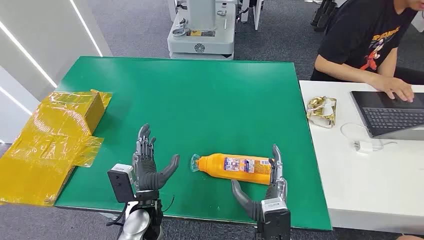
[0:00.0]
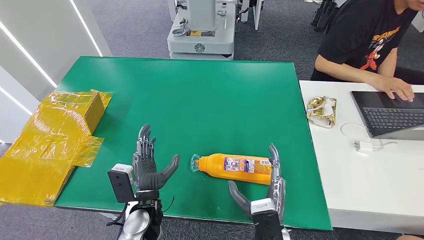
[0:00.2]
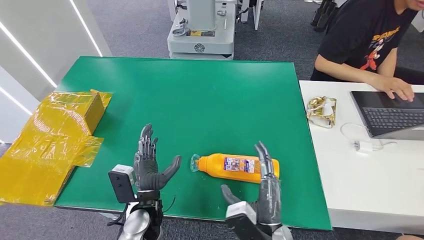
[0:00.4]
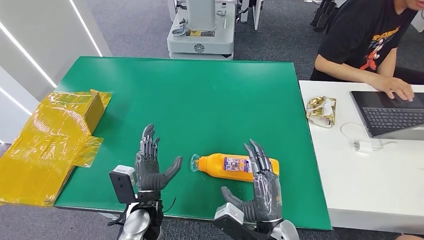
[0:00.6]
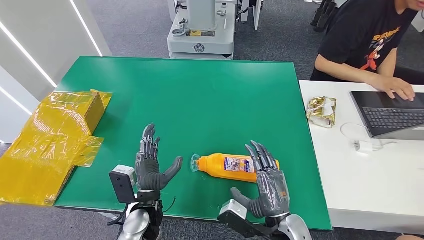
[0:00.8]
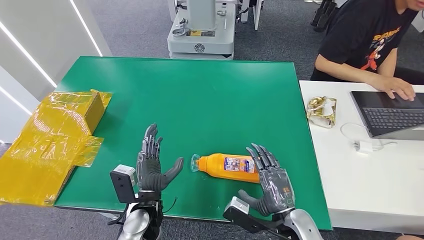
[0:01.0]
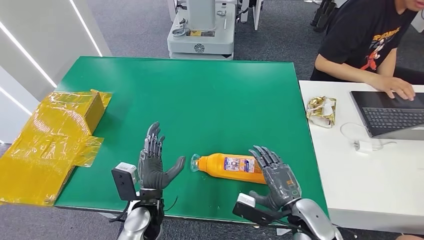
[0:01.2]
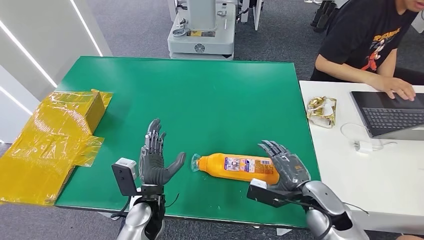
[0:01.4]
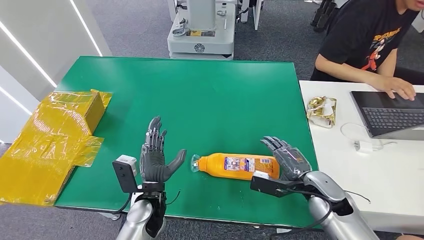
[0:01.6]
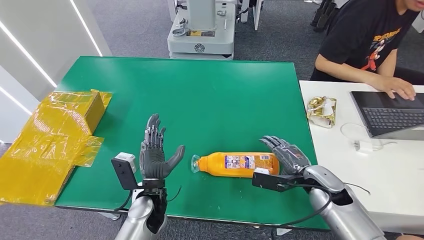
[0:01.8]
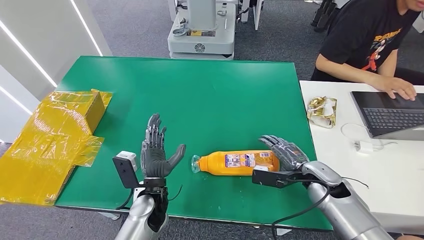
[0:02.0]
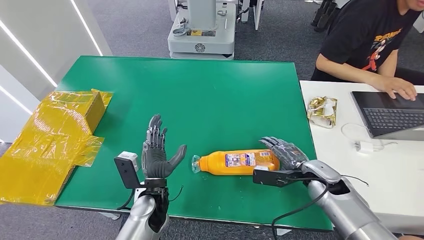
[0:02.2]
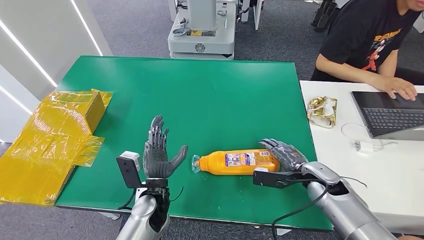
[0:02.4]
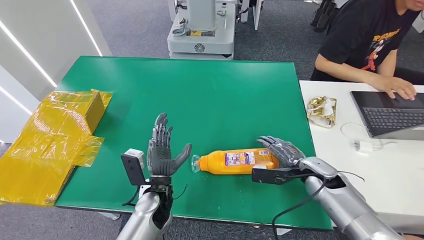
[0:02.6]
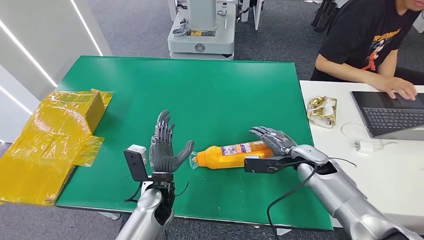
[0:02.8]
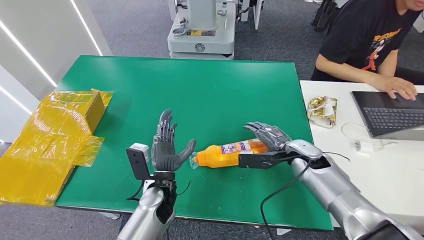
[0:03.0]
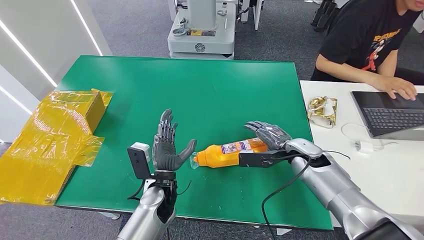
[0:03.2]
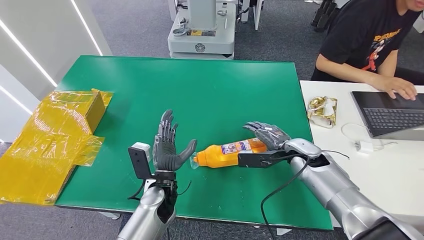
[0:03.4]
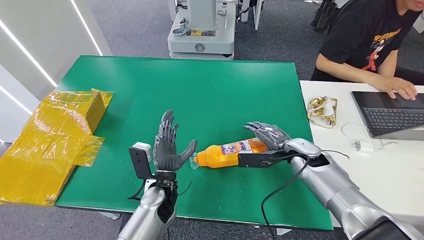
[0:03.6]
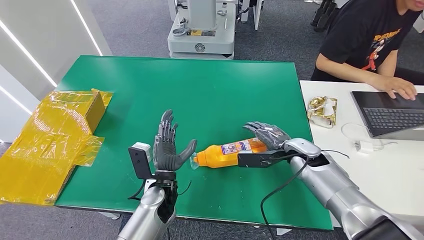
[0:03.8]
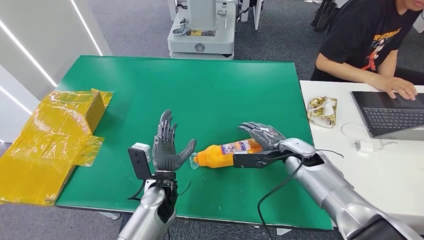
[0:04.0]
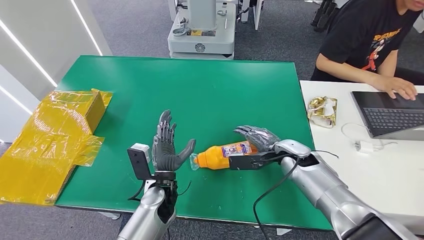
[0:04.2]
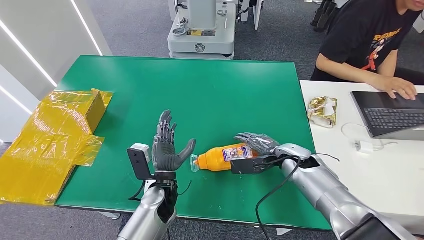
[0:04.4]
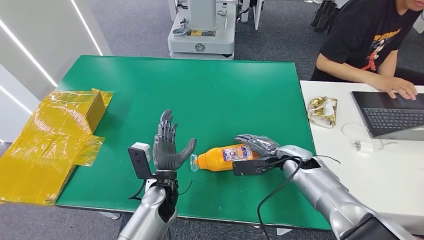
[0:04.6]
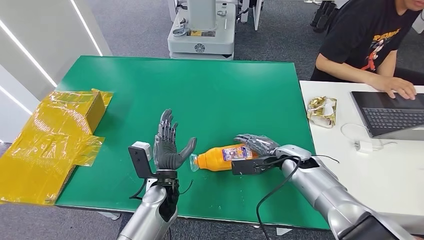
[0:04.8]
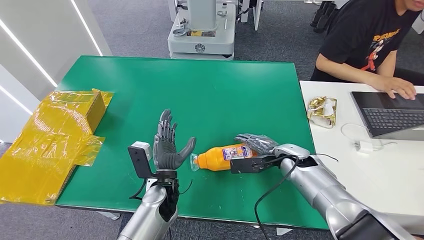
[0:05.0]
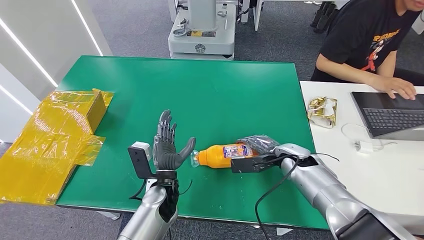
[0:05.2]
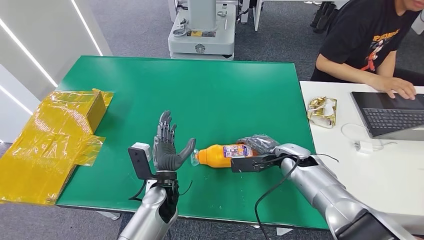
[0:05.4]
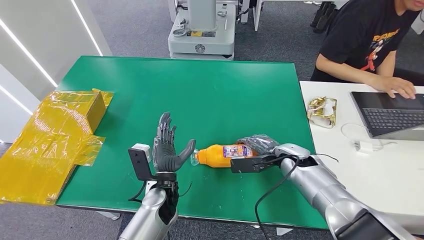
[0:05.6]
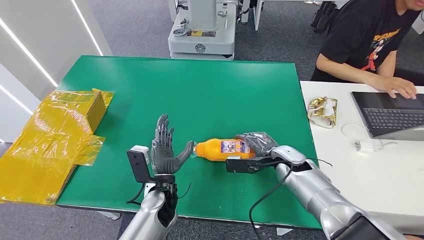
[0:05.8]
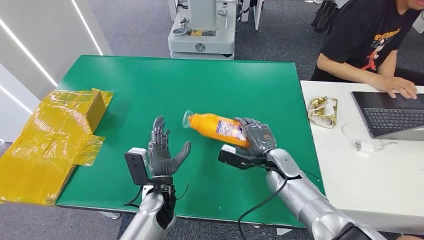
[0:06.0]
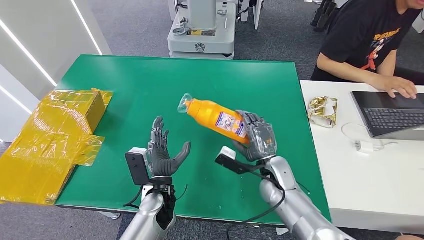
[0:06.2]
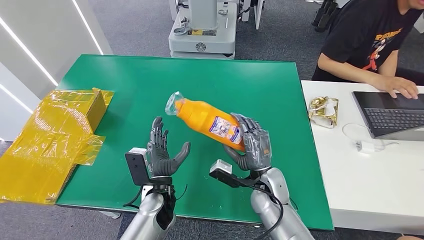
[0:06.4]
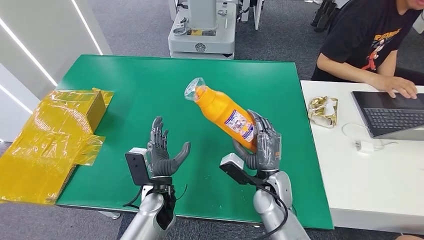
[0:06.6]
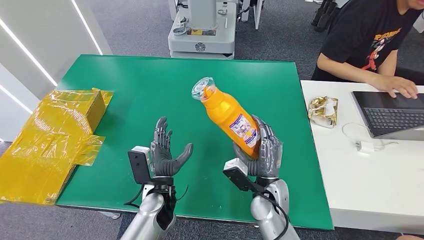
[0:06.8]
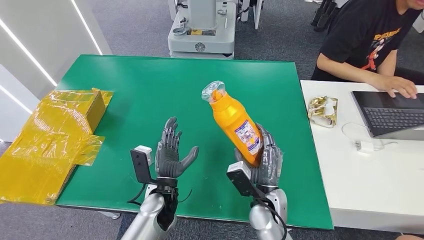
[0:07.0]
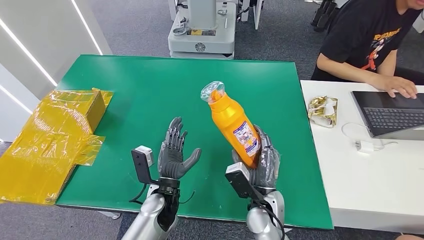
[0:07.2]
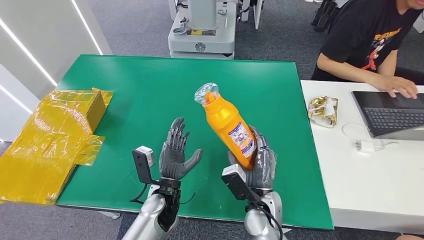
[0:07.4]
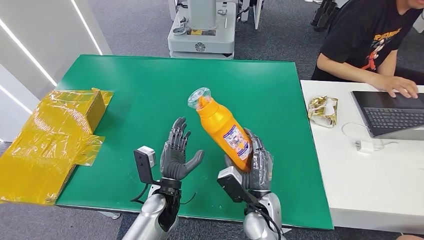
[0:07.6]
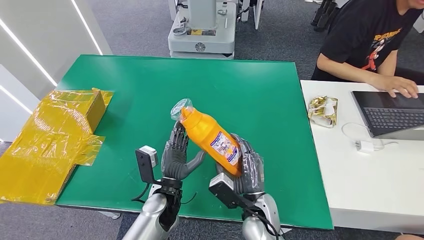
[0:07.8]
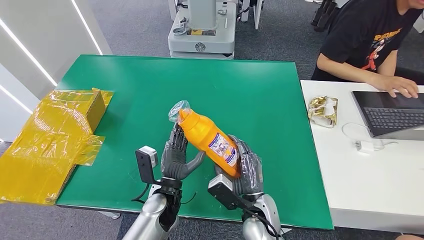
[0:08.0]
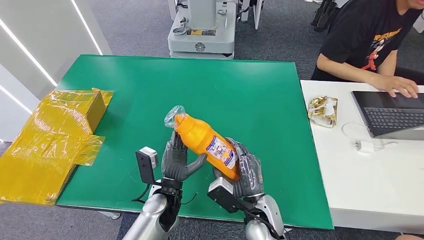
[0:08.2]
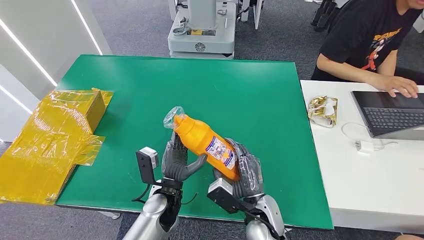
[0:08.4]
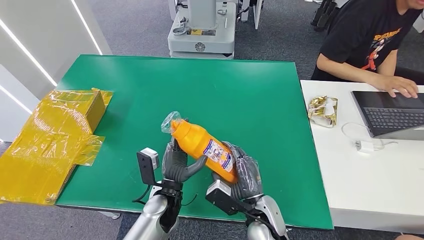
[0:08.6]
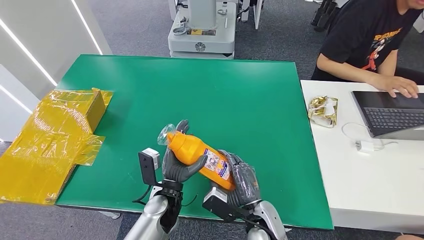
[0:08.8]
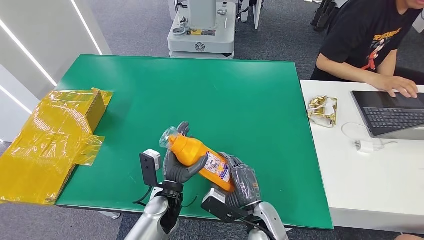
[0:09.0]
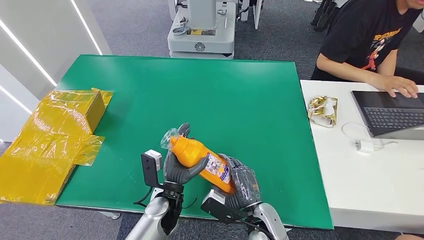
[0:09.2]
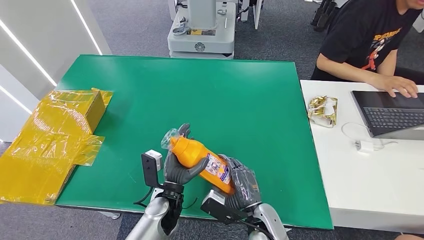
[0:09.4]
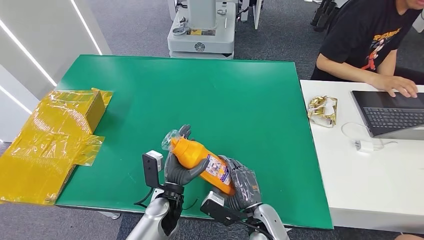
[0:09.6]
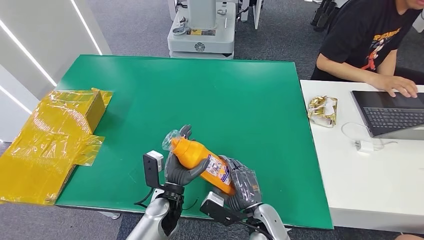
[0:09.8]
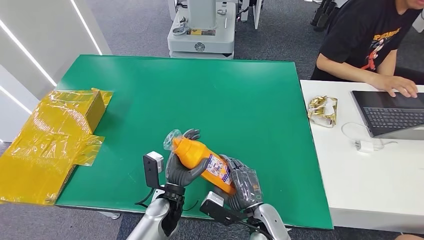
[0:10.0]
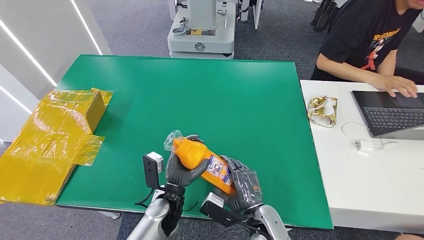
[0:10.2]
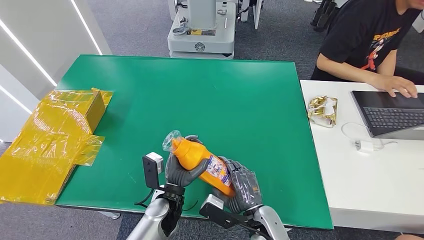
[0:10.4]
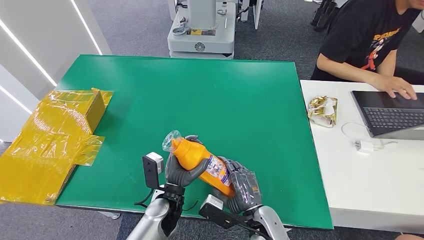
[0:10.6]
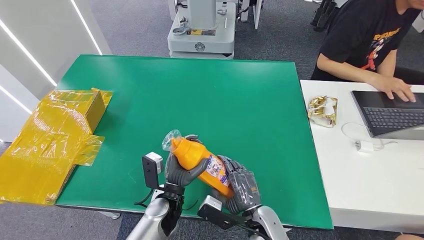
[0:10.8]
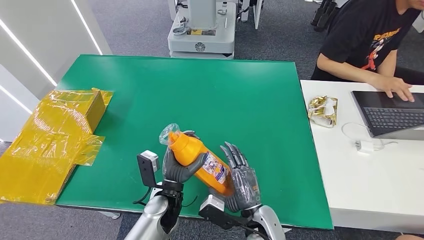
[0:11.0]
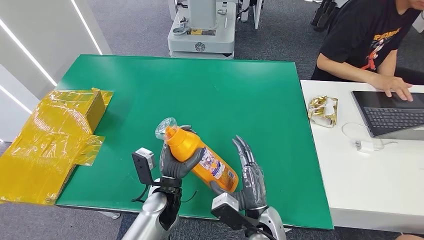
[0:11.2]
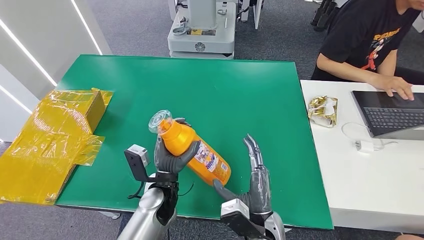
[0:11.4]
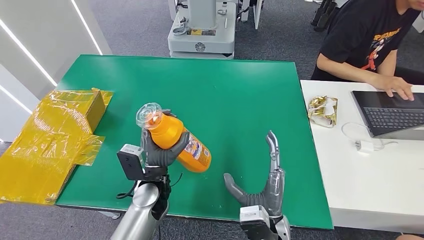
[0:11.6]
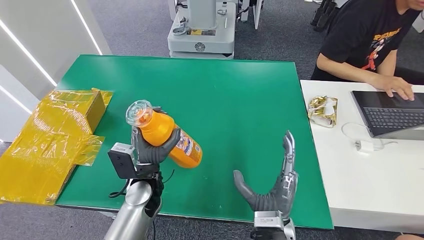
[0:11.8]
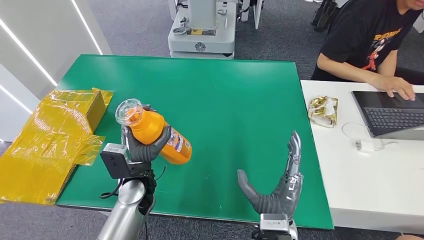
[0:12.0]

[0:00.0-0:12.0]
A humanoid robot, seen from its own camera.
Step, 0:00.0 to 0:07.2: Pick up the bottle from the table.
0:01.6 to 0:03.0: The right hand is displaced forward by some 10 cm.
0:03.0 to 0:04.4: The hands stay close to where they were, moving slightly.
0:04.4 to 0:06.0: The right hand moves some 5 cm.
0:06.0 to 0:07.6: The right hand shifts some 15 cm backward and to the left.
0:09.0 to 0:10.4: The hands move only a little.
0:10.4 to 0:12.0: The right hand shifts approximately 5 cm upward, while the left hand heads to the left and upward, covering about 10 cm.

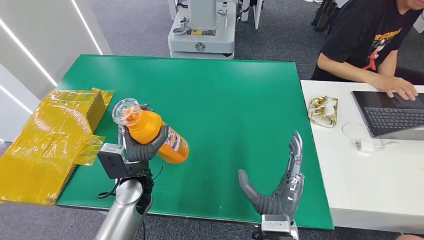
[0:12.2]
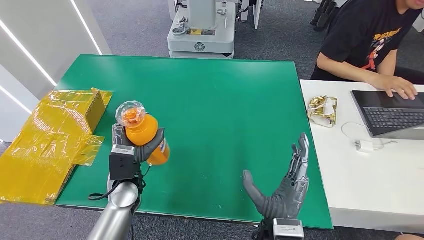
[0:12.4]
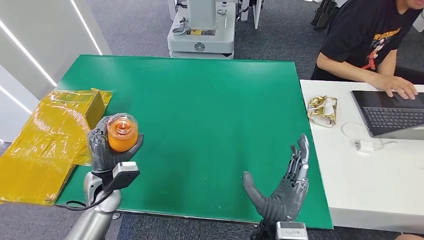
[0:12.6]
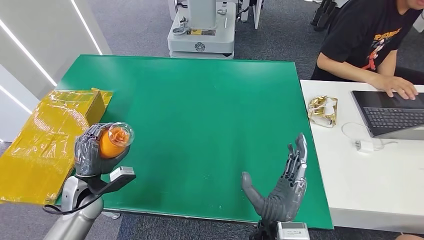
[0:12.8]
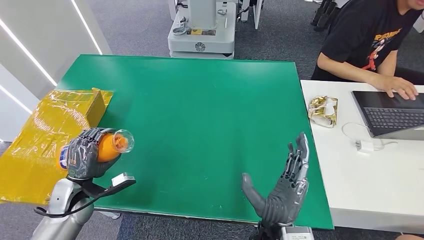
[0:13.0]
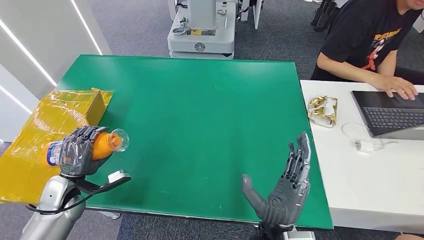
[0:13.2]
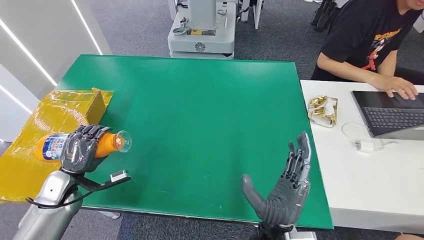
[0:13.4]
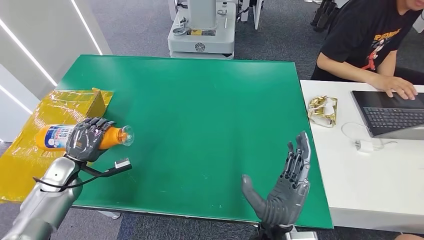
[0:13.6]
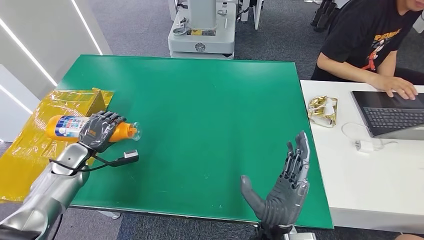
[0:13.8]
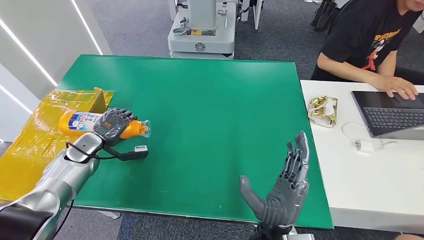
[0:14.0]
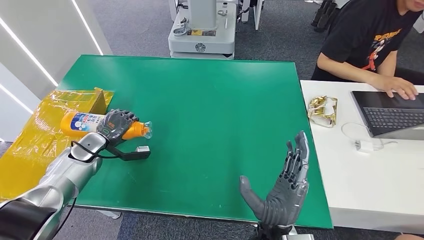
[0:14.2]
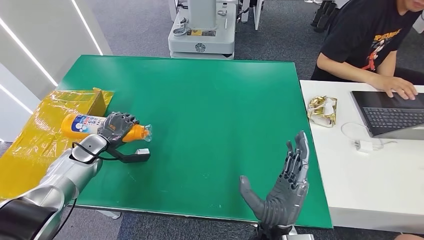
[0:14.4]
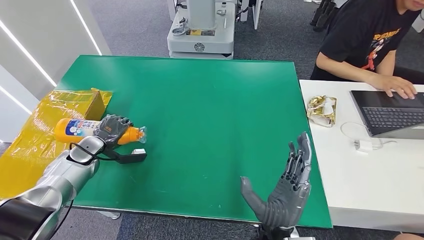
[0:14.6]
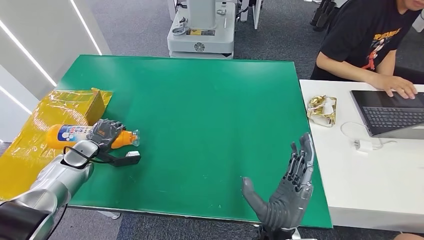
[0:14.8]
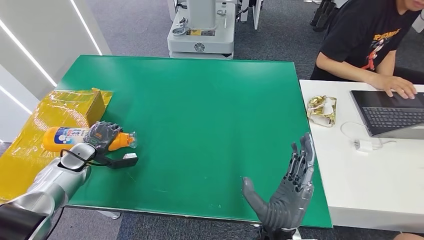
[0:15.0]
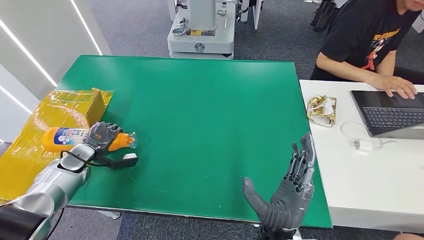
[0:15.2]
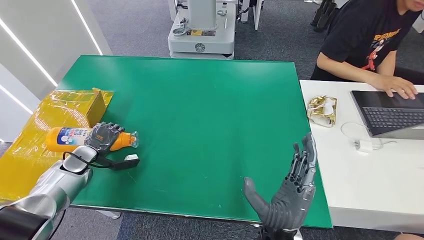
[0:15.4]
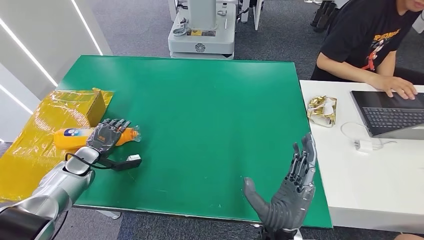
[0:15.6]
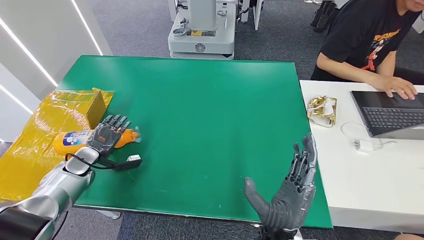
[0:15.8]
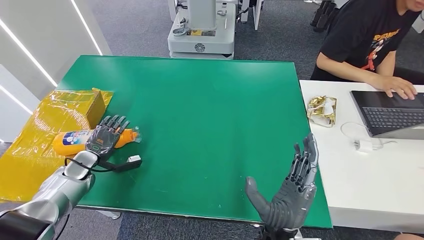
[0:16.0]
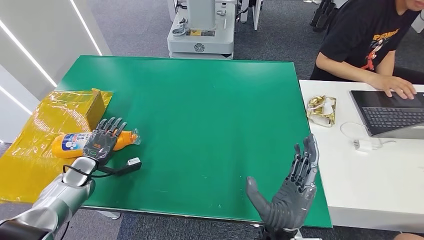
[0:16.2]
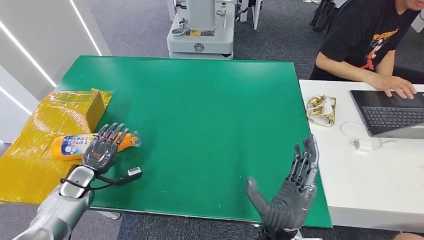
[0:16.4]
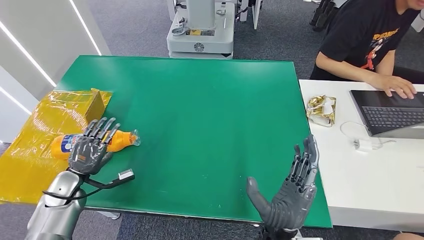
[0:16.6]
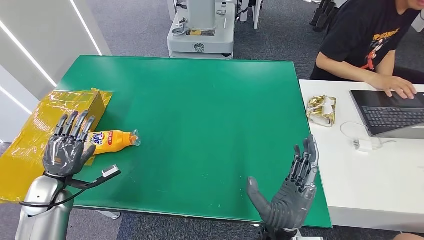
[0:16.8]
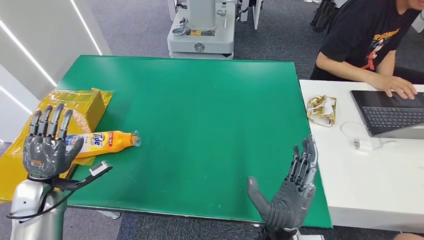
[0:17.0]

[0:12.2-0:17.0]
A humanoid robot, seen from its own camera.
Step, 0:12.2 to 0:17.0: Turn the bottle to the front side.
0:12.2 to 0:13.8: The left hand moves to the left, some 25 cm.
0:15.4 to 0:17.0: The left hand travels backward and upward by roughly 10 cm.
